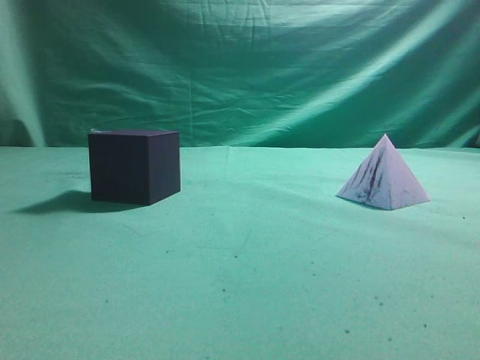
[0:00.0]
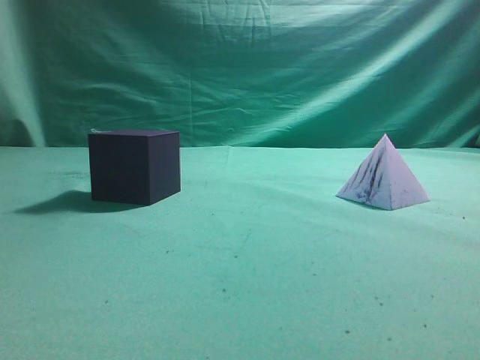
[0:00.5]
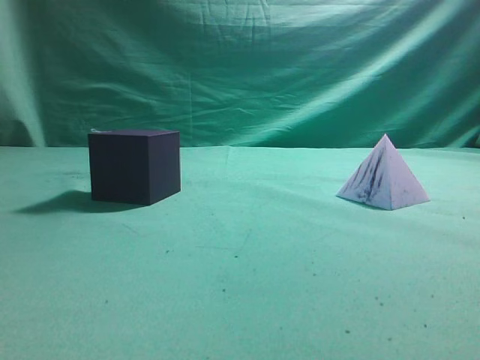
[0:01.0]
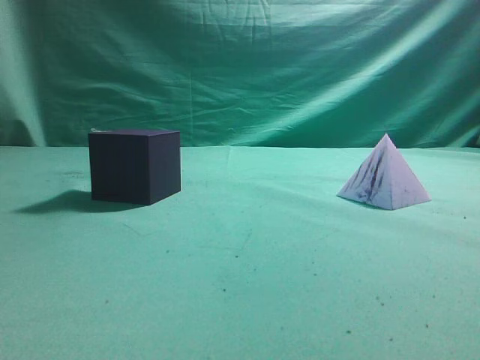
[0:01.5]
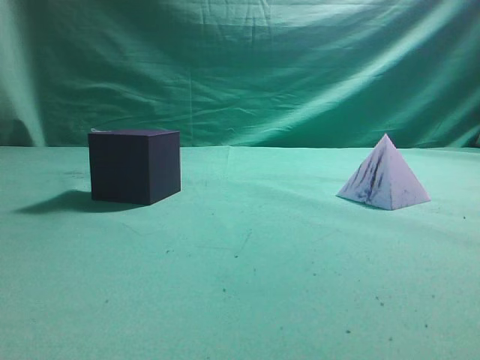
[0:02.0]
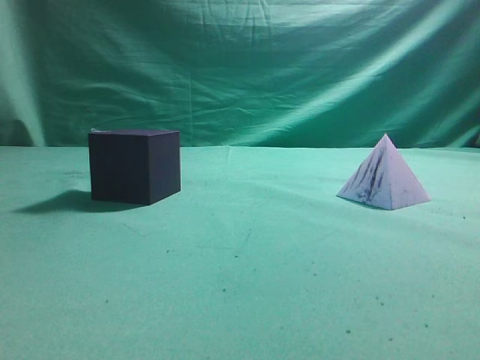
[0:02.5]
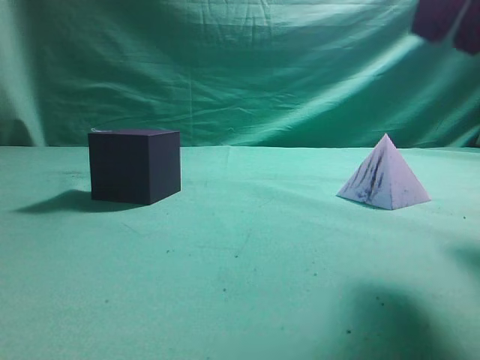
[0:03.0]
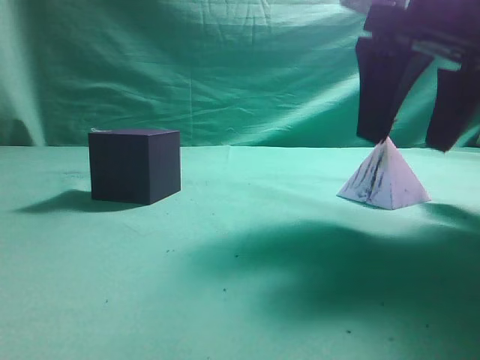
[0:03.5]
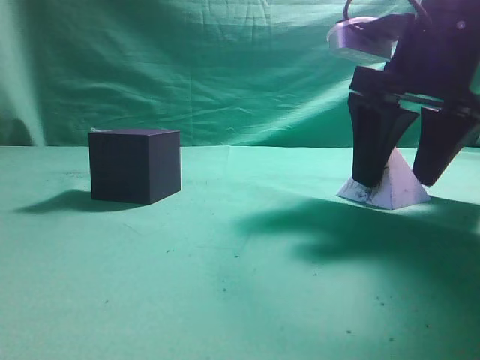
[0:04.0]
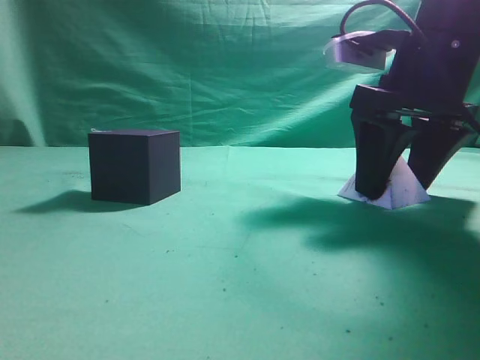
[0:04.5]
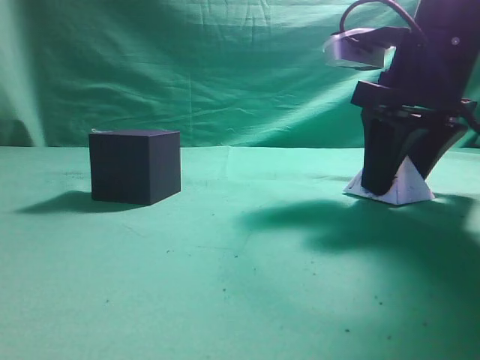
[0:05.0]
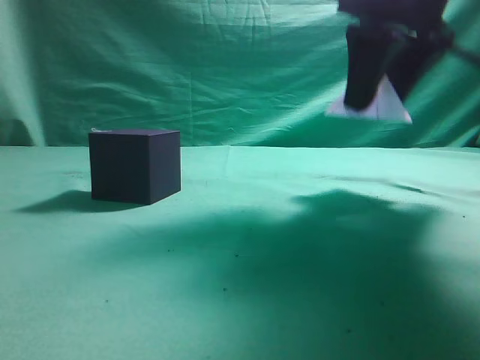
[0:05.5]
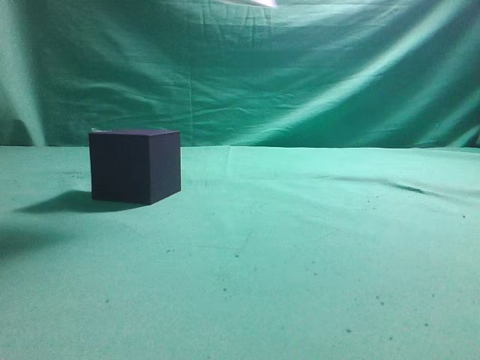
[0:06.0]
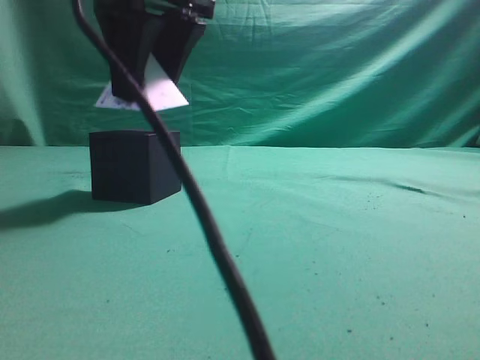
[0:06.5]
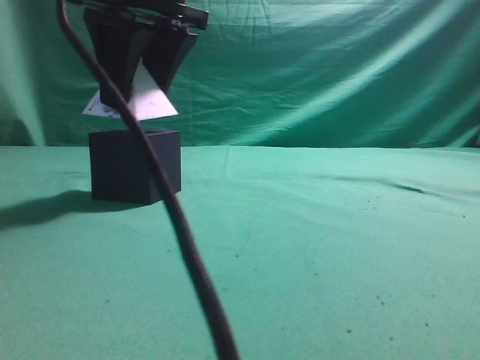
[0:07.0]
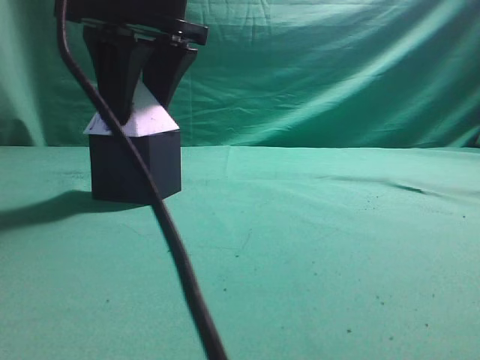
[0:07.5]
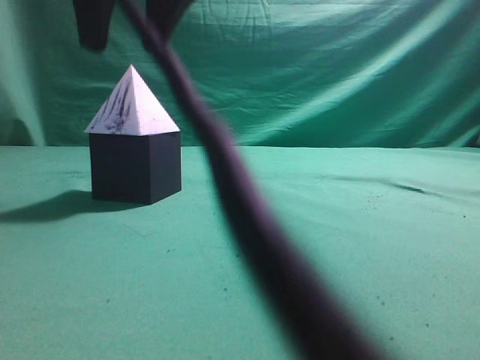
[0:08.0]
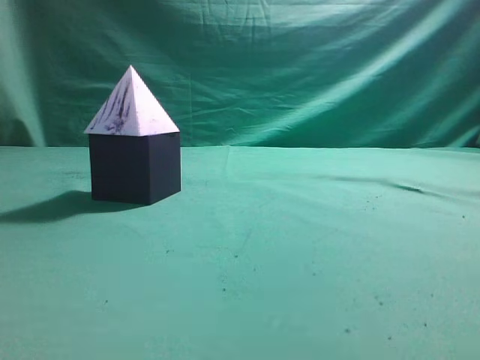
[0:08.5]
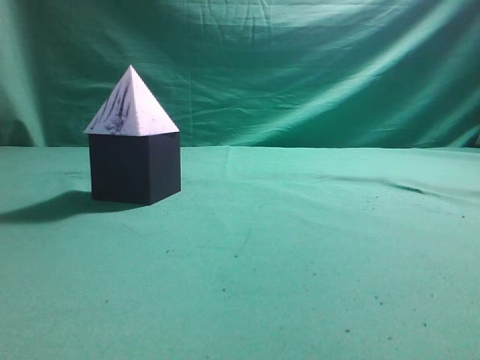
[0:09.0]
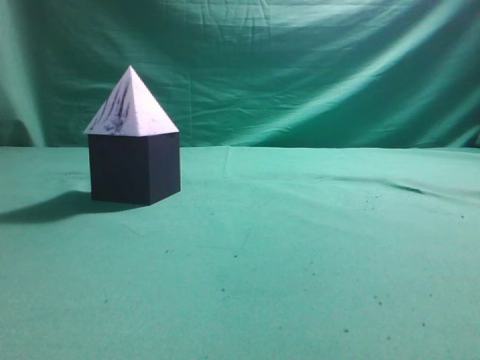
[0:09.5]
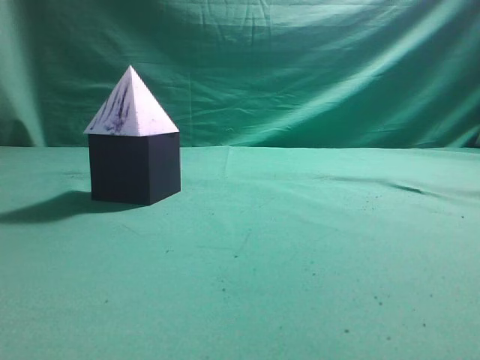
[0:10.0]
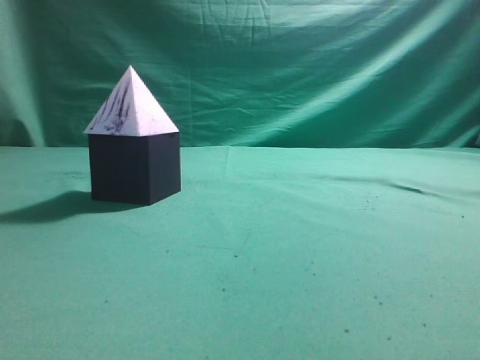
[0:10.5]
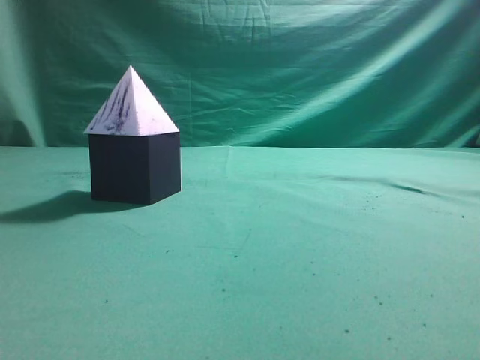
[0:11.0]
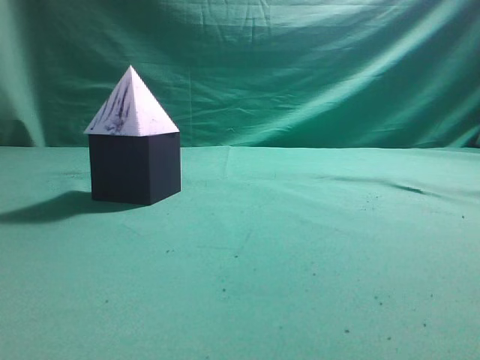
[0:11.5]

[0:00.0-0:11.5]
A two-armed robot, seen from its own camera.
Task of the whole recording: pick up the square pyramid from the table and place it on the cube block.
Step, 0:00.0 to 0:05.5: Grasp the triangular block.
Step, 0:06.0 to 0:08.0: Place the block onto the cube-shaped block.
0:02.0 to 0:04.0: The right gripper goes approximately 30 cm forward, downward and to the left, and opens up.
0:04.0 to 0:06.0: The right gripper heads upward and to the left, covering about 20 cm, and closes.
0:06.0 to 0:07.5: The right gripper is displaced to the left and downward by roughly 15 cm.
0:07.5 to 0:09.5: The right gripper moves to the right, backward and upward, some 40 cm, and closes up.
